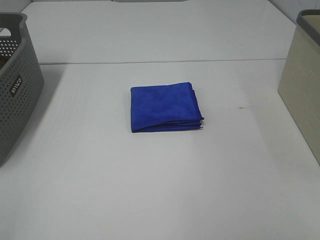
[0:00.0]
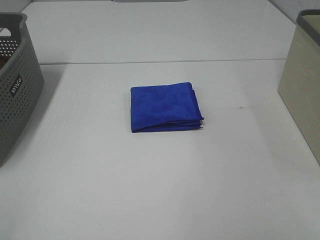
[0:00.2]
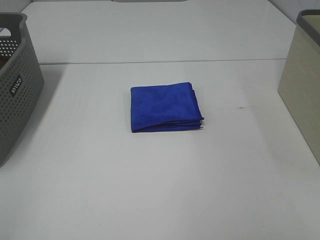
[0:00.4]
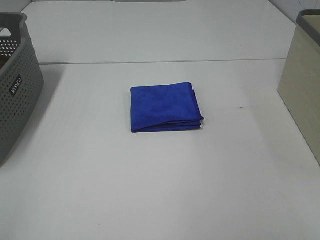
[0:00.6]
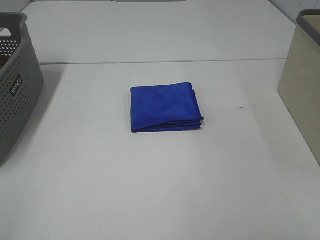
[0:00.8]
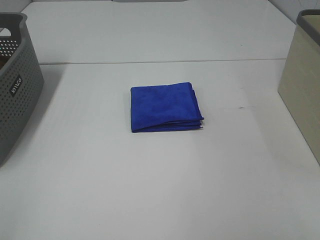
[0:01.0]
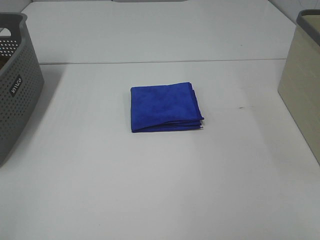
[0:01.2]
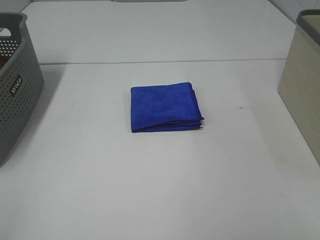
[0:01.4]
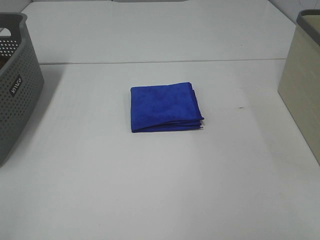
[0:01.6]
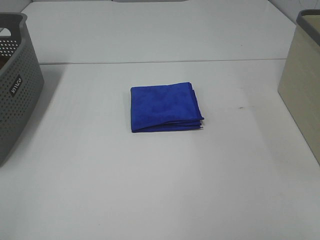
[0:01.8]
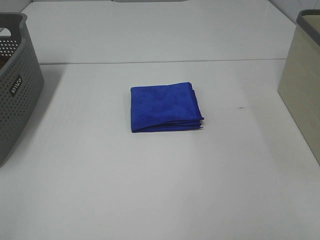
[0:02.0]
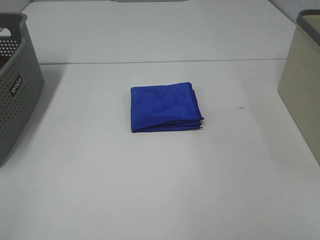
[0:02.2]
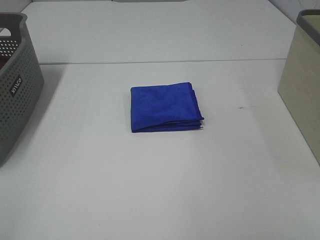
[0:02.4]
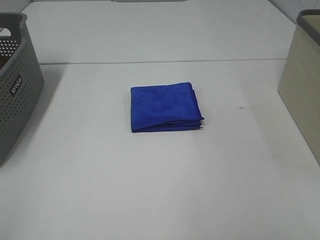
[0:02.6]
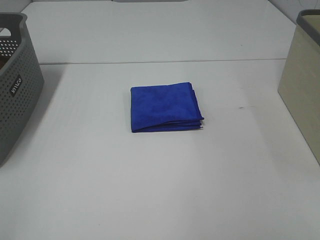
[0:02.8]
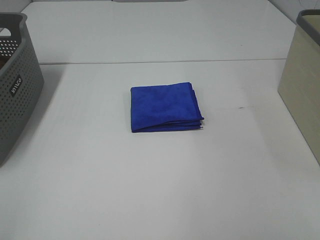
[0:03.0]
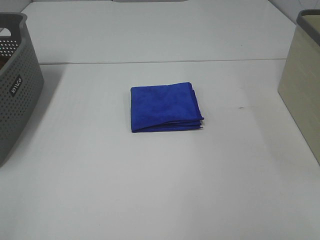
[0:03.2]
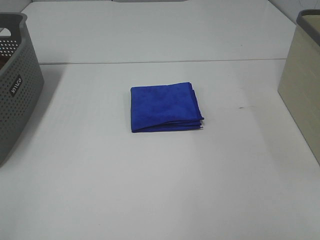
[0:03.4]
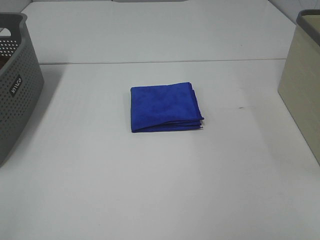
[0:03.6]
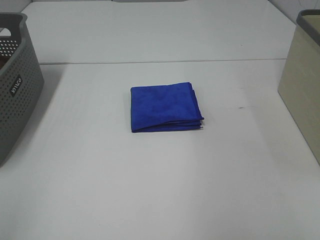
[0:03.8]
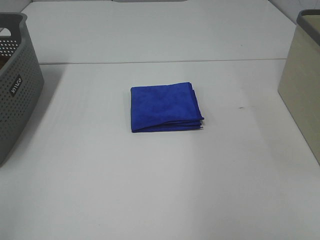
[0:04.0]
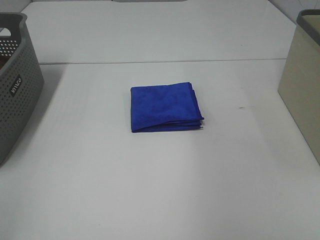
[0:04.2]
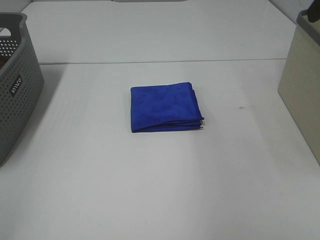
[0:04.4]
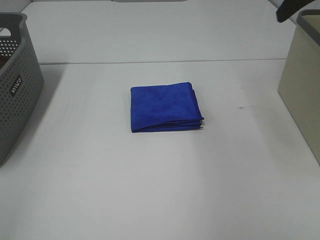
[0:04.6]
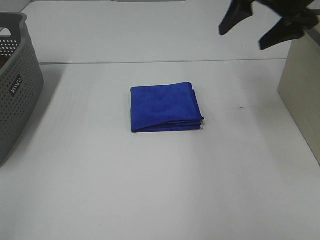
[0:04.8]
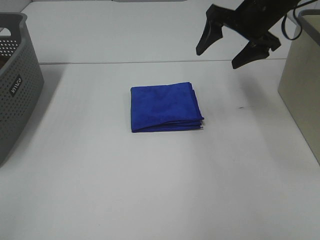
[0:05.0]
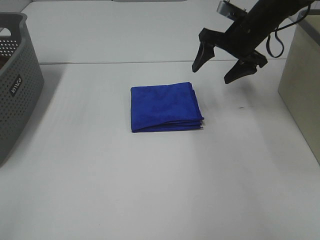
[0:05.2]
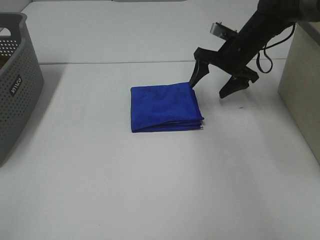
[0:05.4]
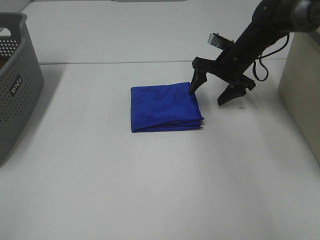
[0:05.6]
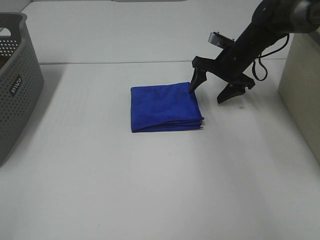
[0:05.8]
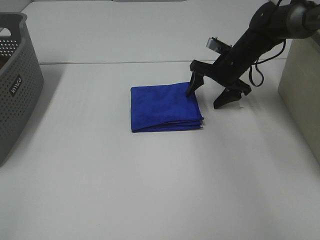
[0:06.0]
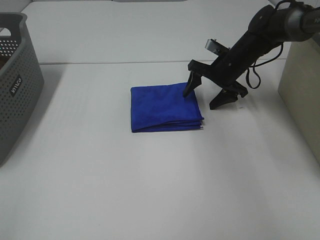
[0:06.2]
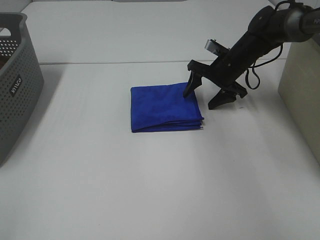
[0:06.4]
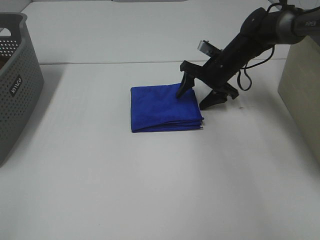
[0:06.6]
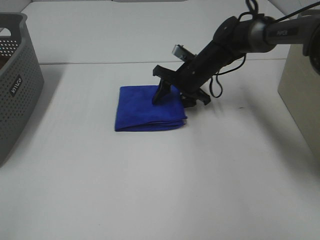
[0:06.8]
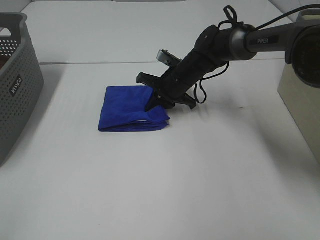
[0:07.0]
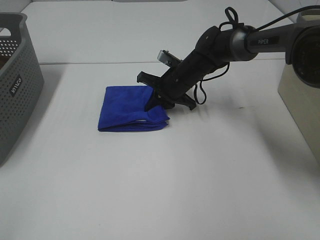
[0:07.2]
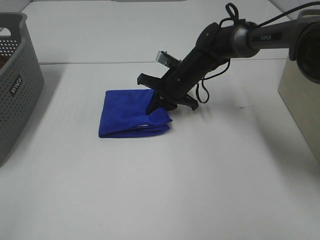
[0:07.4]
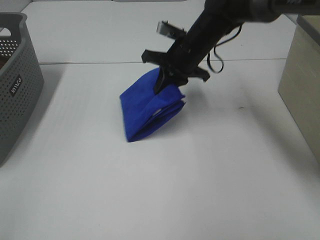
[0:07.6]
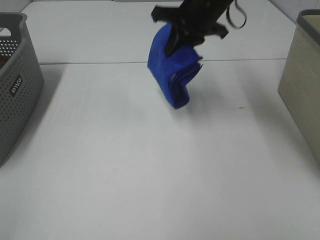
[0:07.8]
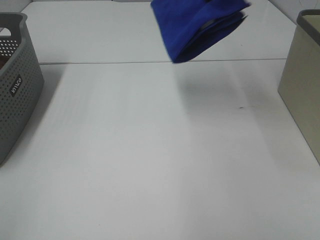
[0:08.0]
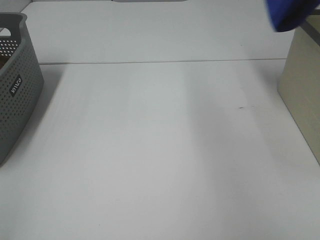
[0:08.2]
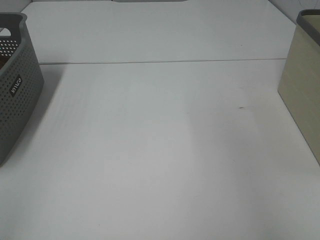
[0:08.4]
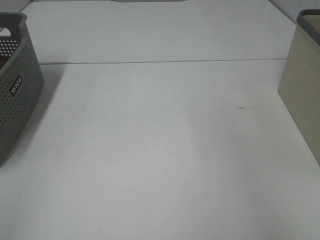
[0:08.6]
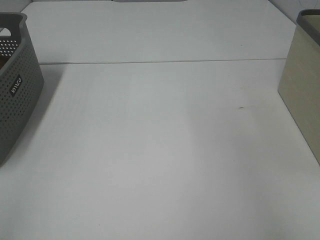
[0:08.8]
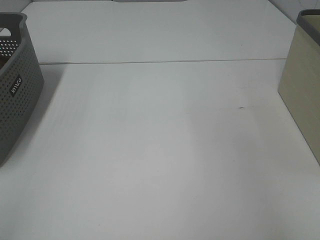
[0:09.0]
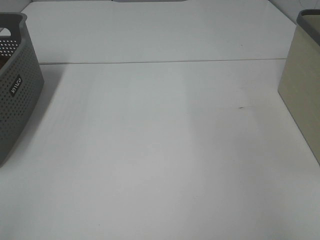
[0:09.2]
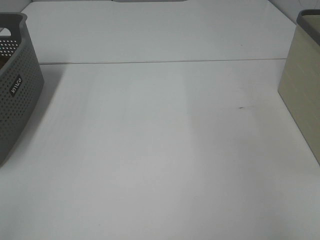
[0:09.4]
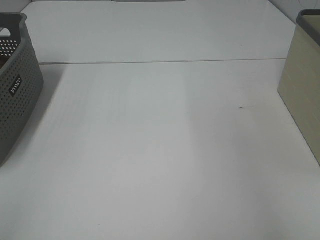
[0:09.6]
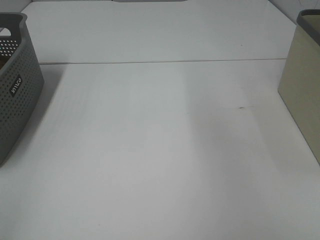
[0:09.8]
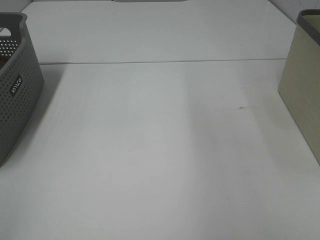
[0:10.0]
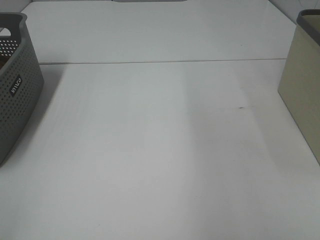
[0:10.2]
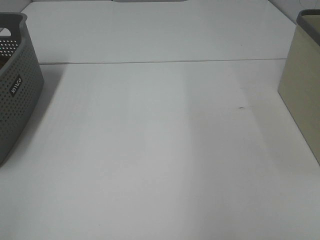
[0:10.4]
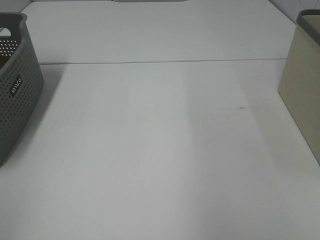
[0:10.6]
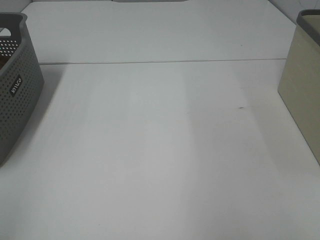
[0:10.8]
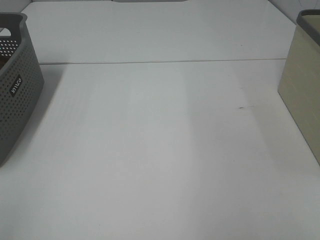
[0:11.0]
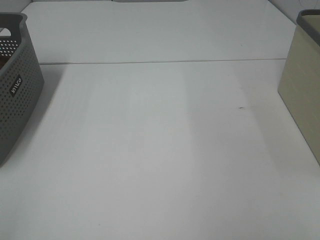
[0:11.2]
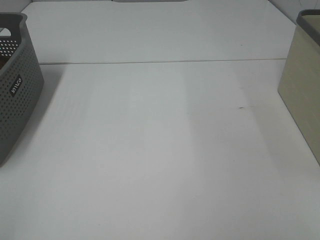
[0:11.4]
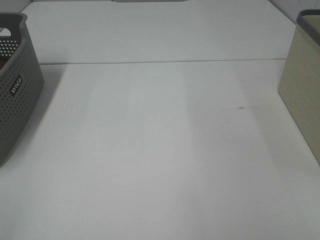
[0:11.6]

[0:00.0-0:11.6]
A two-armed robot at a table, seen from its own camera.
Step, 0:00.0 to 0:07.0: Right hand: grab the folded blue towel.
Step, 0:07.2 to 0:09.4: Right hand: place the blue towel in right basket.
0:00.0 to 0:02.8: Both grippers stay about where they are.
0:04.4 to 0:05.8: The right gripper is displaced downward, forward and to the left by approximately 35 cm.
0:05.8 to 0:07.2: The right gripper heads to the left, covering some 10 cm, and closes its fingers.
0:07.2 to 0:08.8: The right gripper travels to the right and upward by approximately 50 cm.

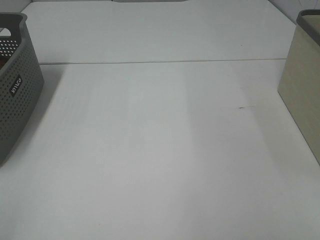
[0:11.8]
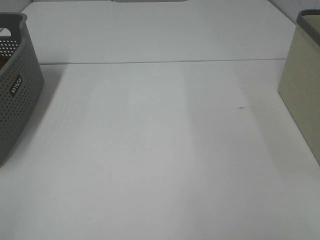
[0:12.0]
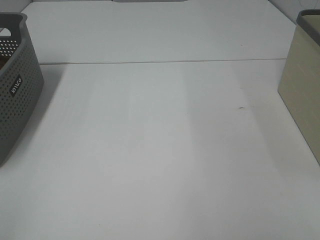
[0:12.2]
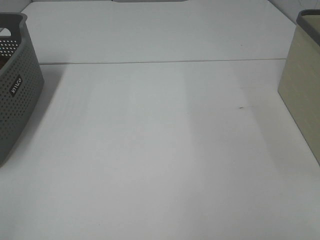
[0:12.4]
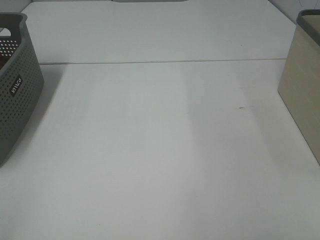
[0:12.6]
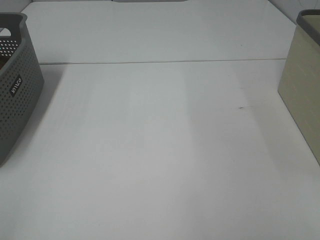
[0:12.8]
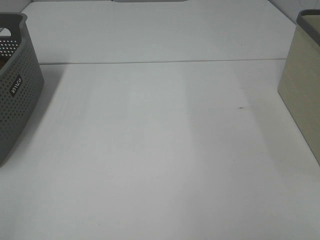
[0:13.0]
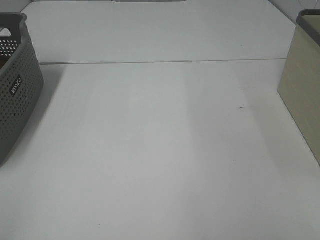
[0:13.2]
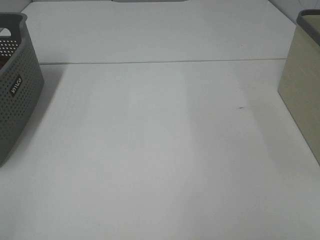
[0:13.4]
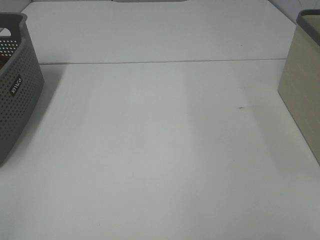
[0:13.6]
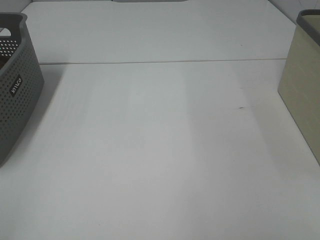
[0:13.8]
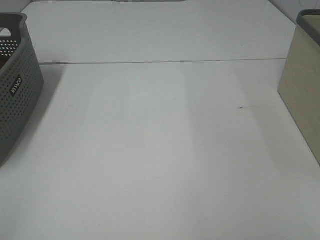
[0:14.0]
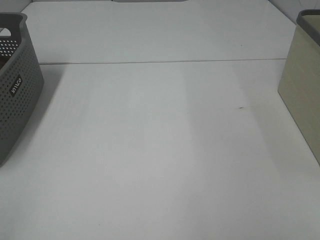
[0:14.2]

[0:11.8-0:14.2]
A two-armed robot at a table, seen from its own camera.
0:11.8 to 0:14.2: Both grippers stay put.

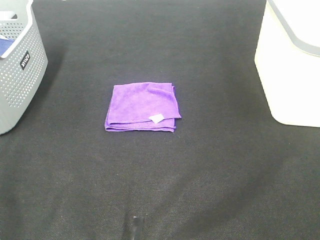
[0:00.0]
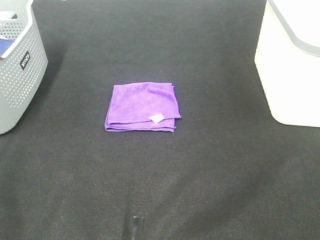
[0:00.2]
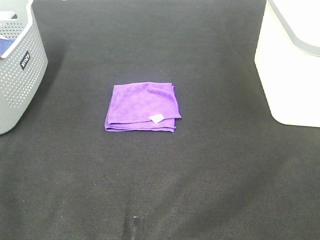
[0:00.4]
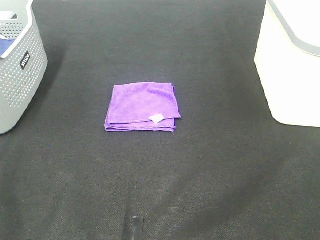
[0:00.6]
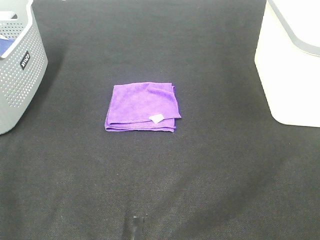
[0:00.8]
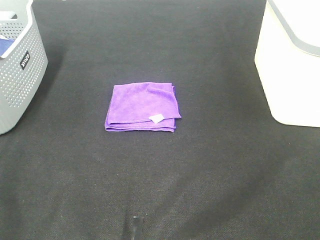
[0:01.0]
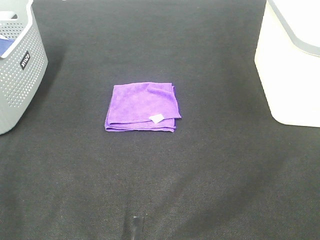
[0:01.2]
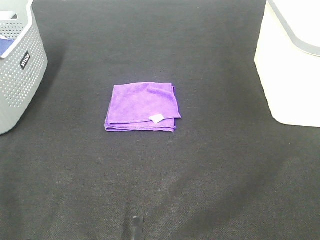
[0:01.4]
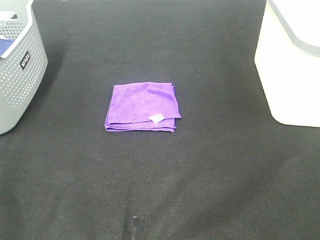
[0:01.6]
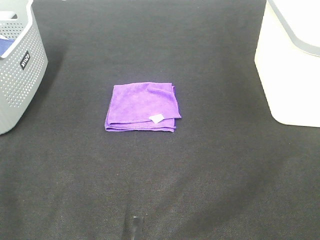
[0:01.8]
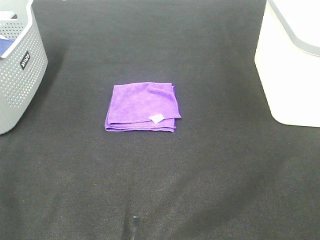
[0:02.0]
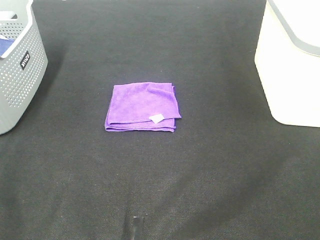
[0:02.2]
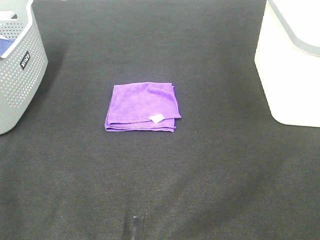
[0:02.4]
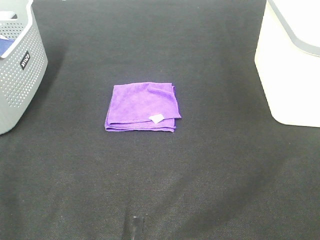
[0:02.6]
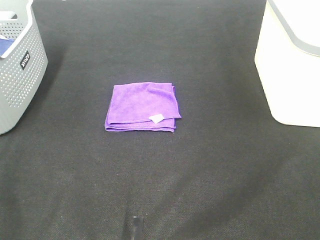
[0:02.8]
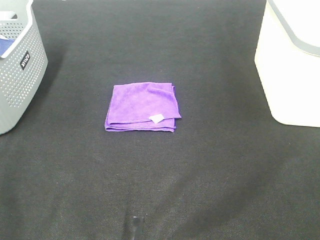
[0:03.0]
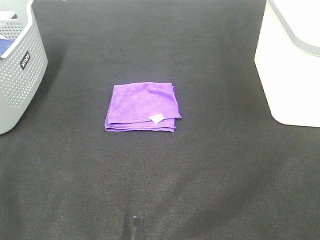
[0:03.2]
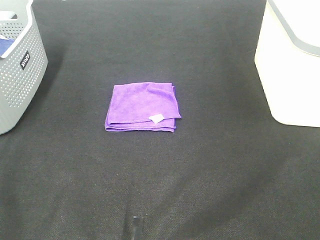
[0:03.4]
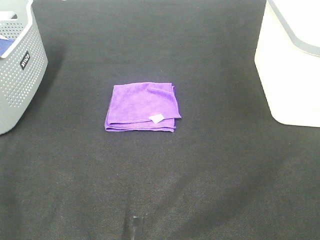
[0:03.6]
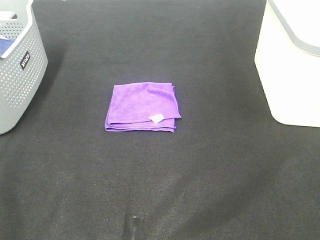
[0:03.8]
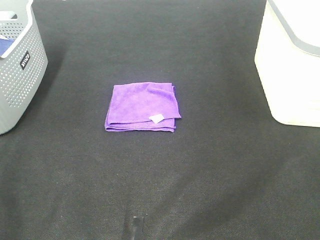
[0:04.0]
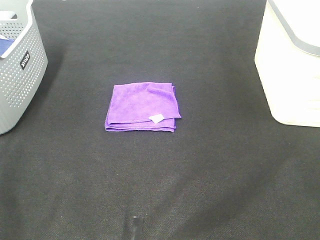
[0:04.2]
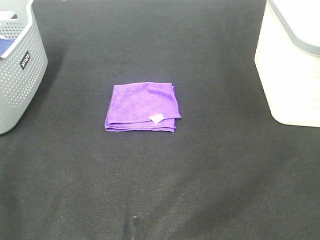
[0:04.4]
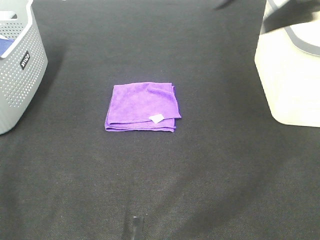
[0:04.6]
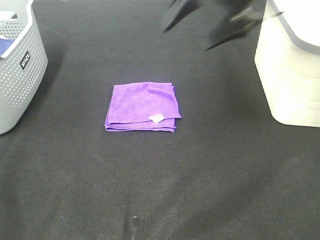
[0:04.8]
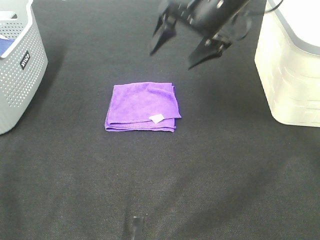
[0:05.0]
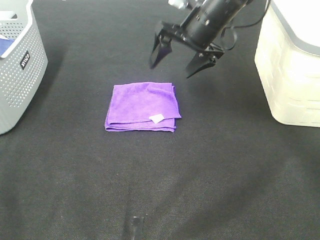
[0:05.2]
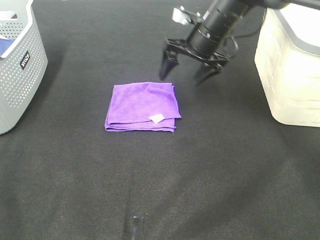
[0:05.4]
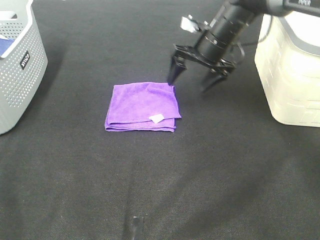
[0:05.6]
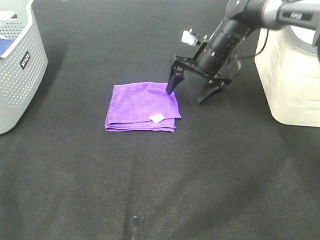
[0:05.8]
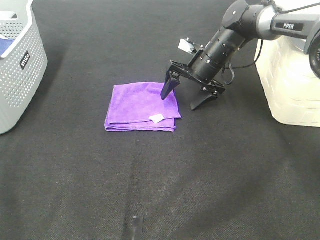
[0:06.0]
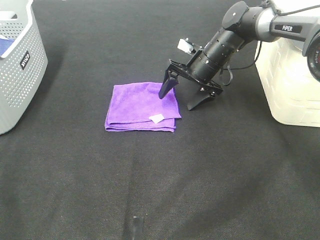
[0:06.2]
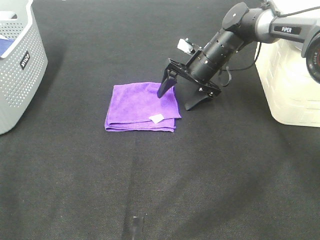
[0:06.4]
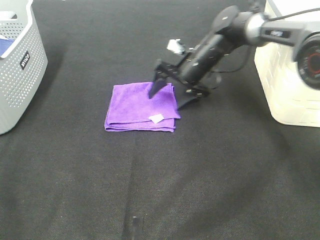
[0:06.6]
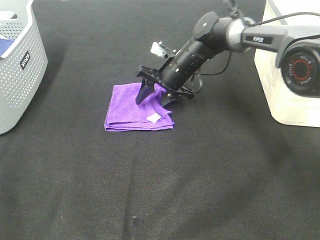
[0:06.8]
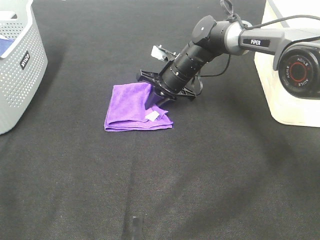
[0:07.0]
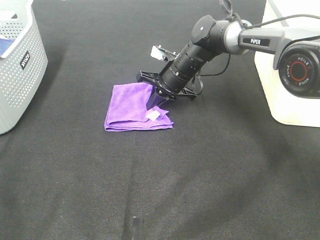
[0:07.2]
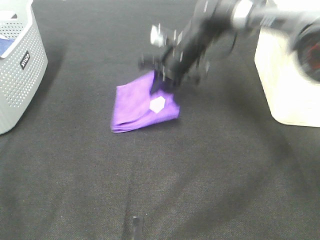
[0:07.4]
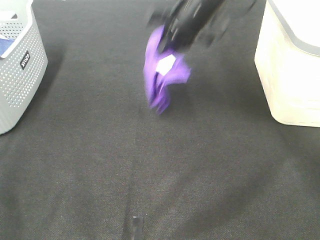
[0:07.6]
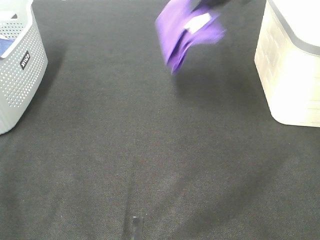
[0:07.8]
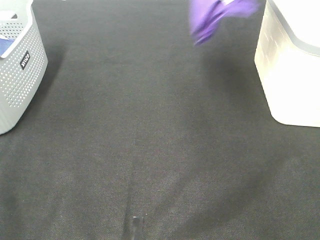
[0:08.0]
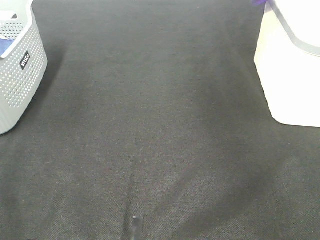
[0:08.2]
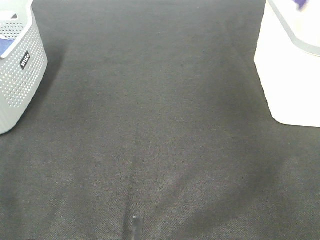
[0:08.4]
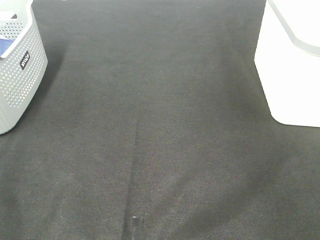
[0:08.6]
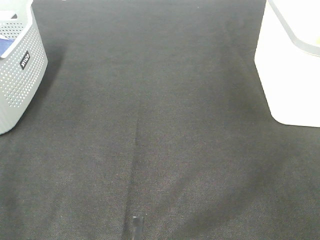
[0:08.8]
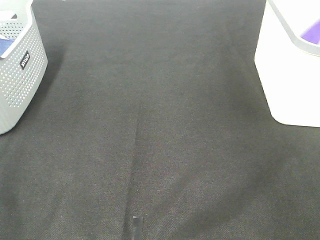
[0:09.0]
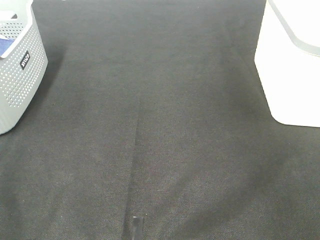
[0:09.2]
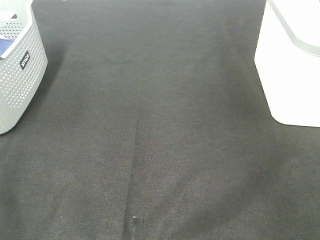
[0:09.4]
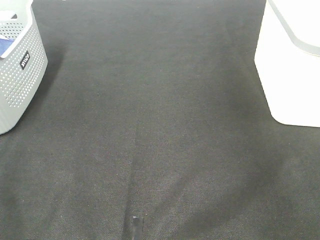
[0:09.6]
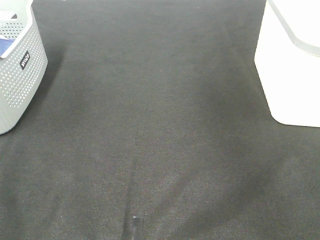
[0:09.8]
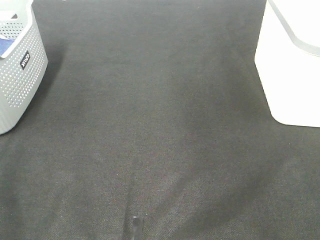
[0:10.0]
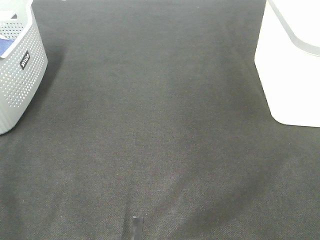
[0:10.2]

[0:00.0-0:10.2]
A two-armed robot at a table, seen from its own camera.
Step, 0:00.0 to 0:07.0: Right hand: grab the folded purple towel.
Step, 0:07.2 to 0:09.2: Right hand: place the purple towel in right basket.
0:00.0 to 0:03.0: Neither gripper changes place.
0:04.4 to 0:05.8: The right gripper goes some 40 cm downward, forward and to the left.
0:05.8 to 0:07.2: The right gripper travels to the left by about 5 cm, and closes up.
0:07.2 to 0:08.8: The right gripper moves to the right and upward, roughly 50 cm.
